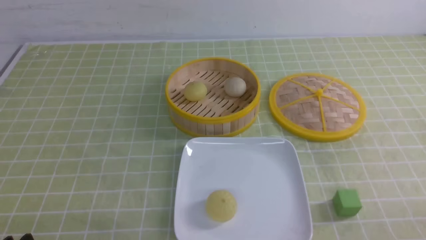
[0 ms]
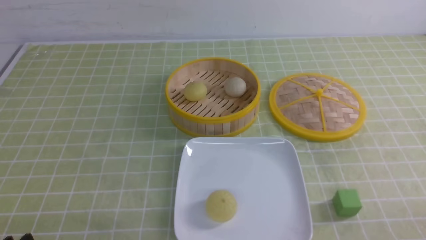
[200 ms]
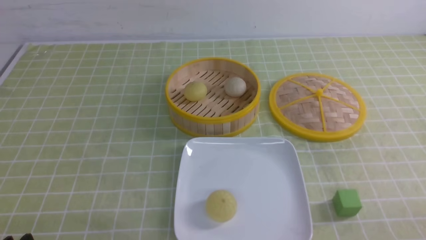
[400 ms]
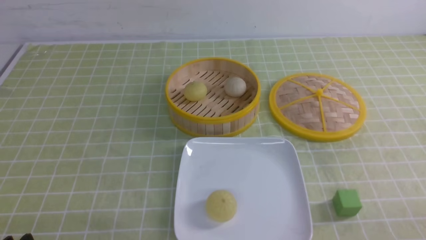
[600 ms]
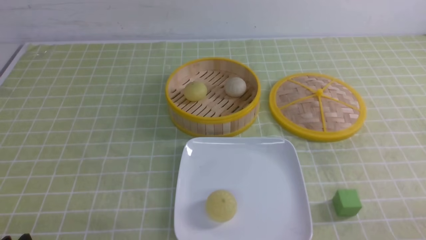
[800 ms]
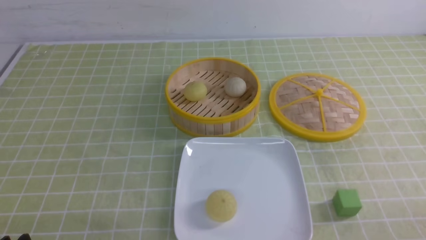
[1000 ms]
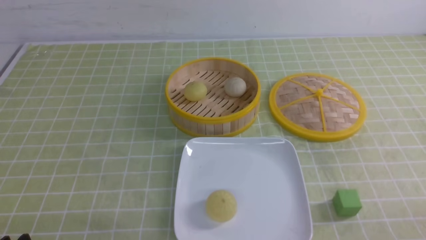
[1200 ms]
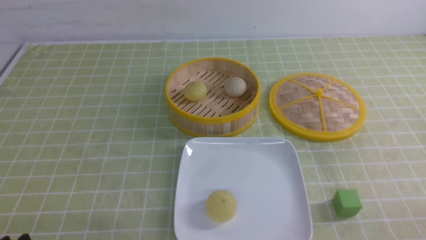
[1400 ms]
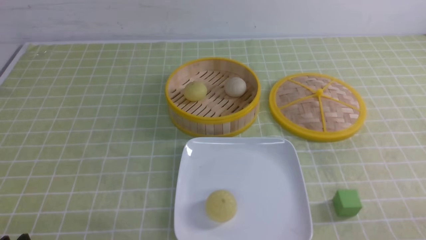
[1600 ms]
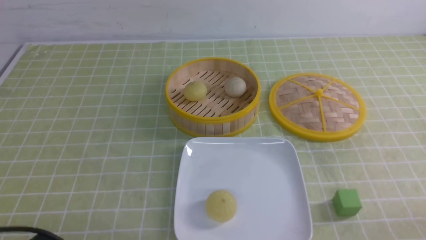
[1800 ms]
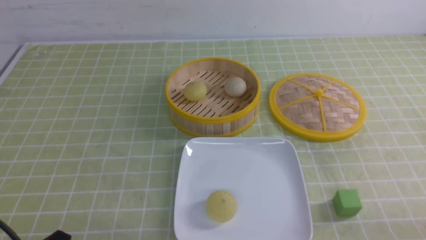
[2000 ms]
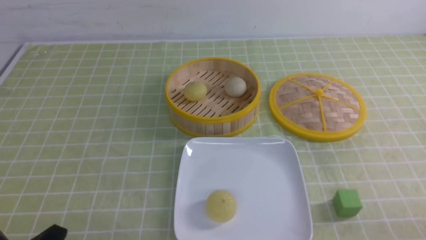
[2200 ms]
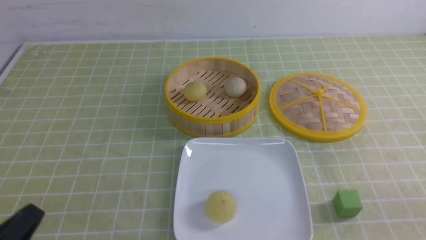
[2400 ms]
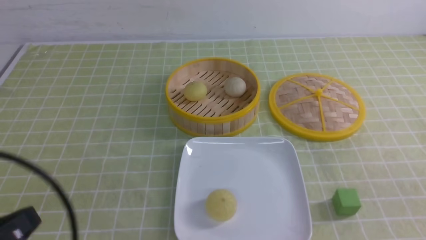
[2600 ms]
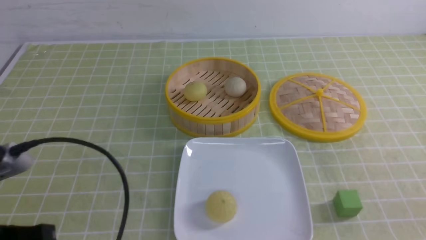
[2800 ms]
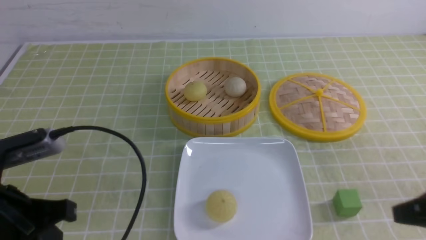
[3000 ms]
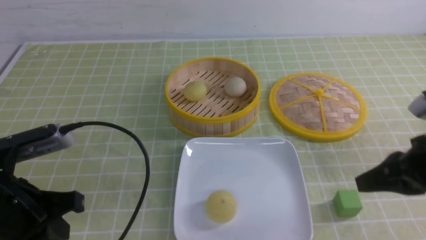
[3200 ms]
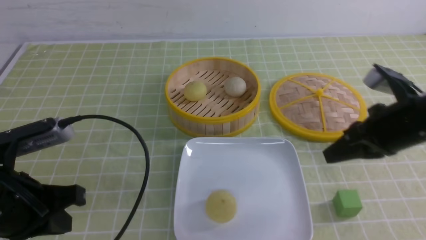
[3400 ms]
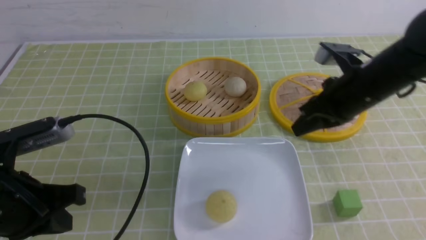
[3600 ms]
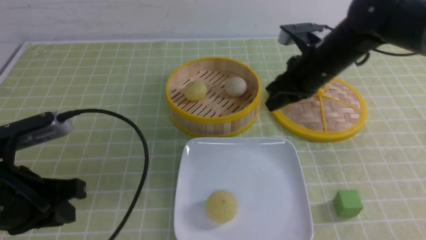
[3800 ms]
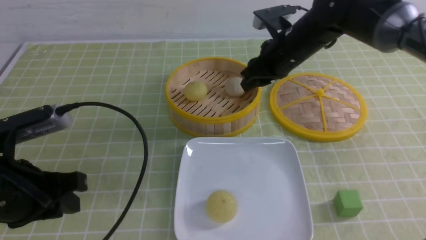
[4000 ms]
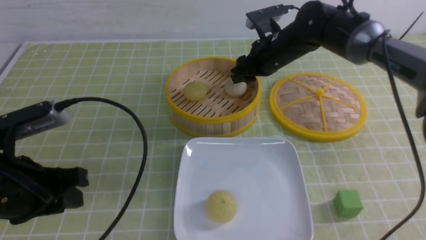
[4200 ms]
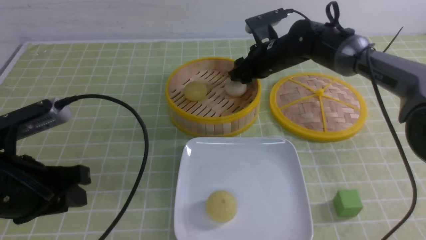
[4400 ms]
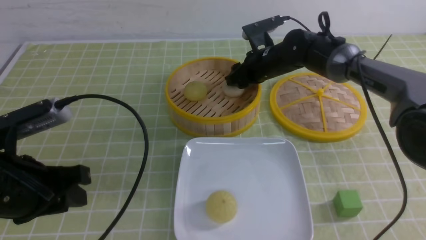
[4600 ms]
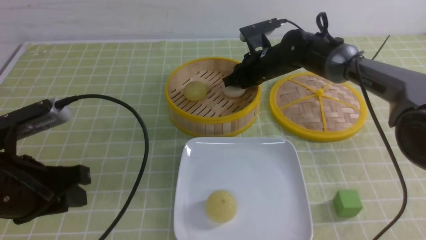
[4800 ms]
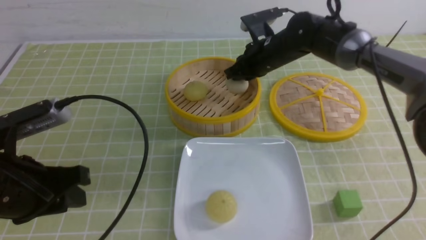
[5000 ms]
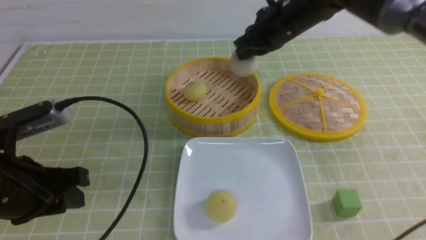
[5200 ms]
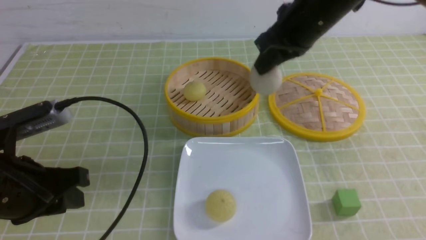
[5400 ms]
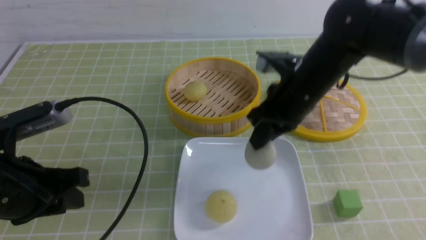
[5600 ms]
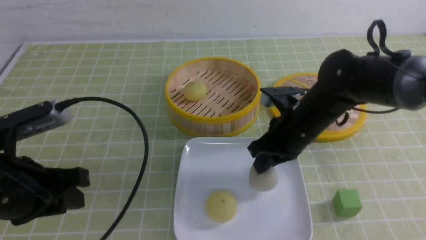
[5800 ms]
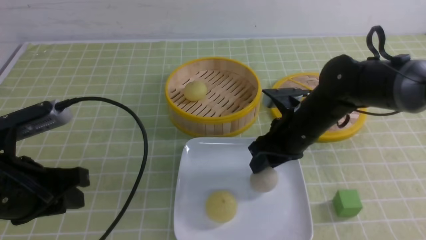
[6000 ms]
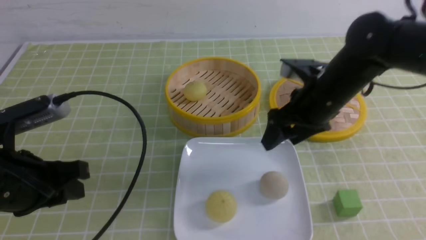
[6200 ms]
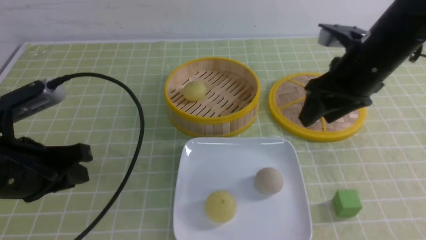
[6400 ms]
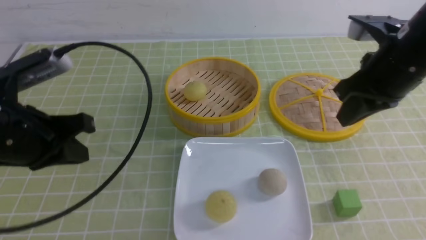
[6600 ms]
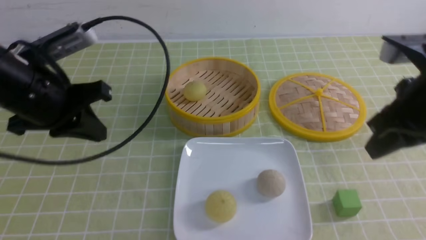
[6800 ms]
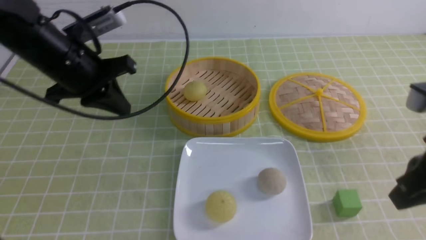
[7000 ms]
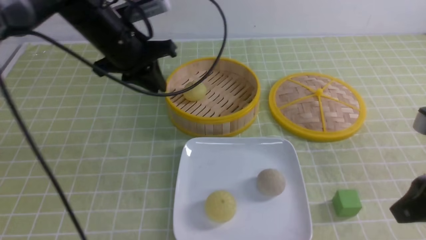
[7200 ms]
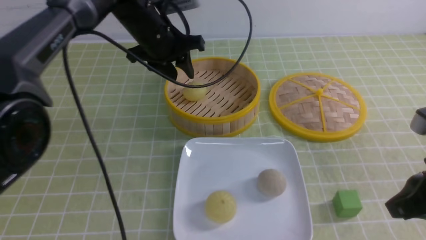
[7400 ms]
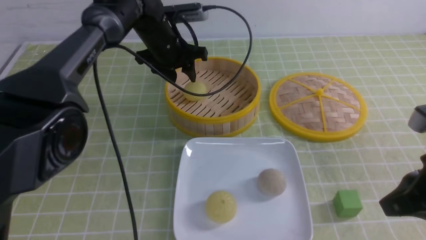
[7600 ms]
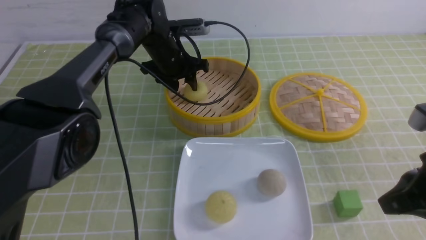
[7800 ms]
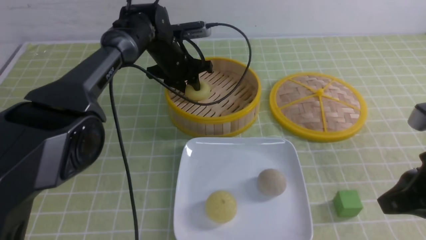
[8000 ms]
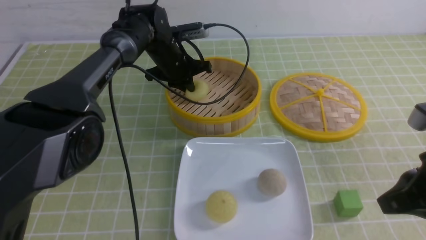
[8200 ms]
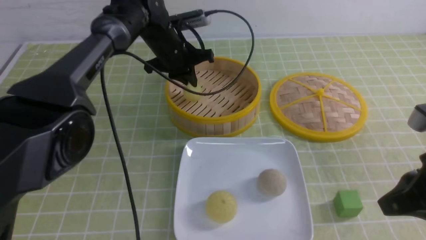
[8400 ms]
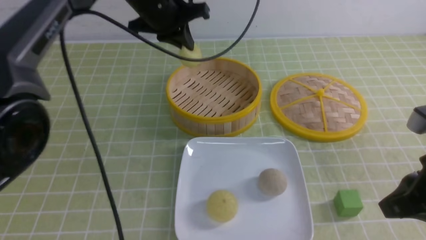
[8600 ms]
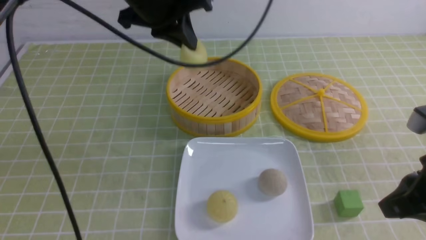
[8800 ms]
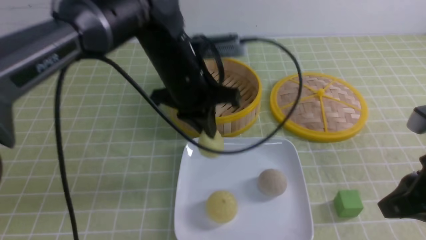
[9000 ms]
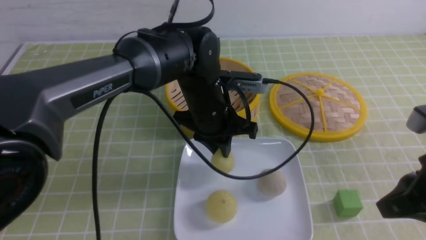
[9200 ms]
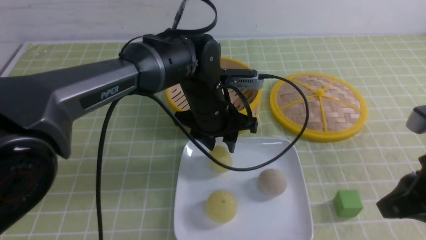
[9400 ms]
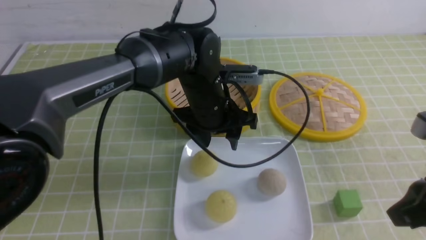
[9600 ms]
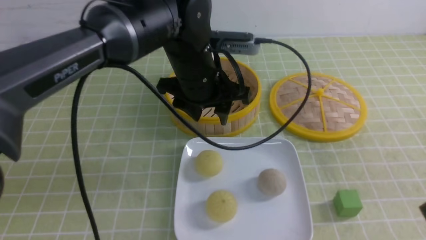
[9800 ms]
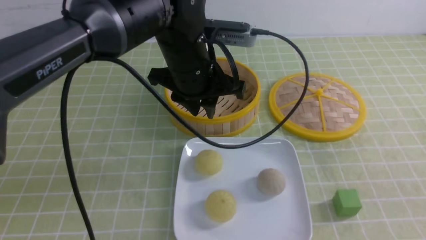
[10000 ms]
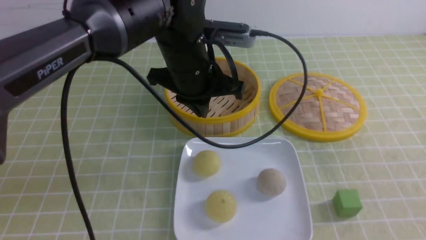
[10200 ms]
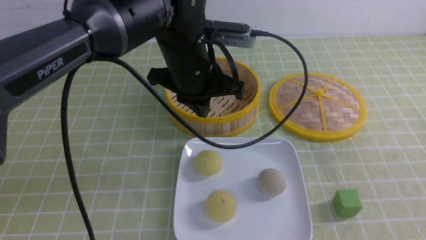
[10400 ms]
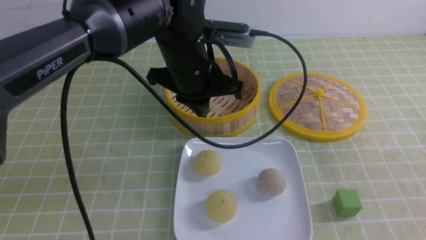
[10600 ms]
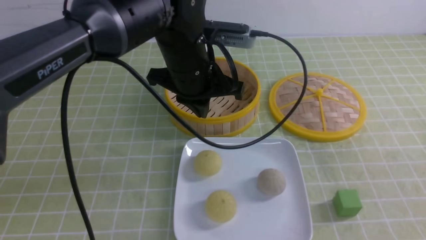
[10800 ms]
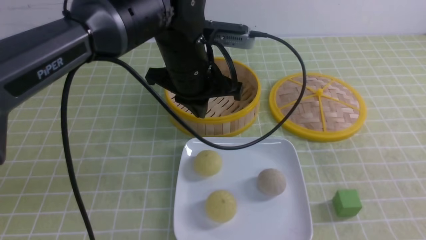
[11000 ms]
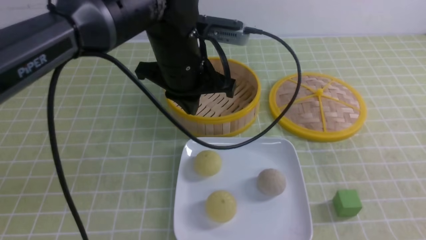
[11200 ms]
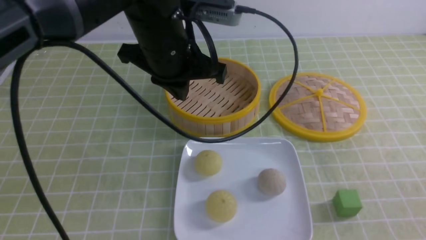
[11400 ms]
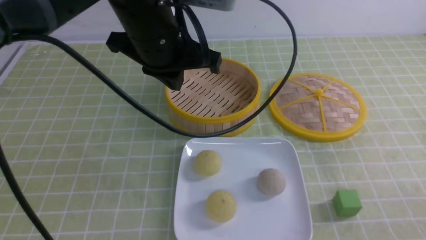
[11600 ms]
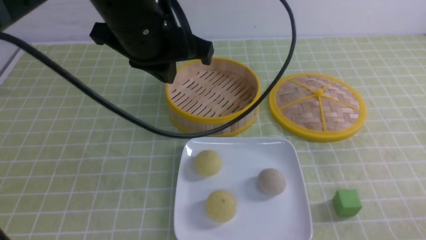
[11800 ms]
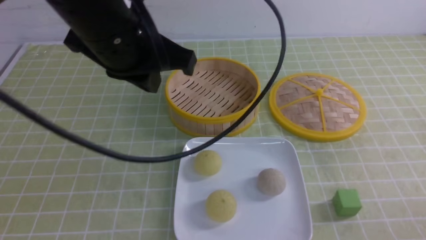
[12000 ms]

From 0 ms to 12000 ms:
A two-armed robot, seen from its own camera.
Step, from 0 ms to 4800 ms: use the right arm to grab the steamed stuffed bun that is closest to it.
Step, from 5000 ms to 6000 ms: use the right arm to put the steamed stuffed bun into the plate.
Step, from 6200 ms to 8200 ms: use the left arm to grab the steamed stuffed bun that is closest to it.
Step, from 8400 ms to 9400 ms: use the left arm to put the steamed stuffed bun into the plate.
From 1600 ms to 3000 ms: The right gripper goes approximately 15 cm forward and upward, and closes up, while the left gripper goes some 15 cm upward and forward, and closes.
From 3000 ms to 4400 ms: The left gripper opens up. The right gripper travels forward and to the left by some 40 cm, and opens up.
From 4400 ms to 6000 ms: The right gripper is displaced backward by approximately 15 cm, and closes and opens again.
From 6000 ms to 7600 ms: The left gripper moves forward and to the right, roughly 35 cm, and opens. Meanwhile the right gripper is displaced backward and to the right by roughly 20 cm, and closes its fingers.
From 7600 ms to 9000 ms: The left gripper goes roughly 15 cm backward, and closes its fingers.
From 9000 ms to 10400 ms: The left gripper travels downward and back again, some 5 cm each way, and opens, then closes once more; the right gripper moves backward and to the right, roughly 10 cm.
From 10400 ms to 12000 ms: The left gripper shifts about 15 cm upward, backward and to the left, while the right gripper goes approximately 10 cm downward.

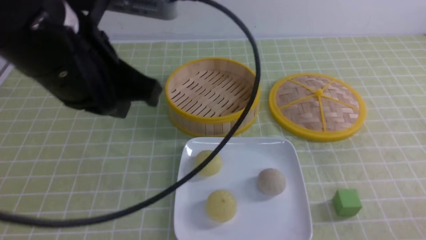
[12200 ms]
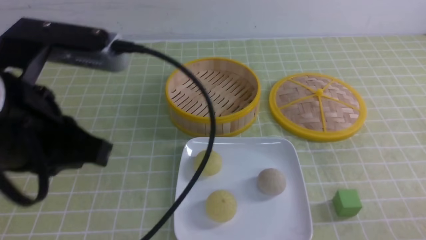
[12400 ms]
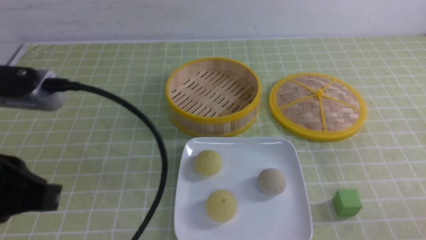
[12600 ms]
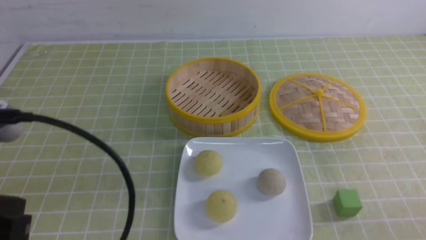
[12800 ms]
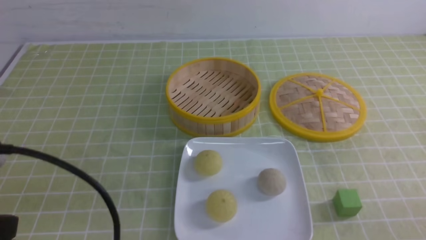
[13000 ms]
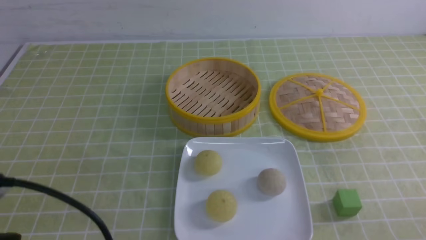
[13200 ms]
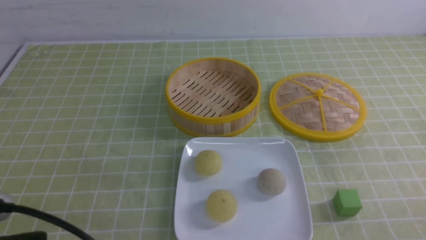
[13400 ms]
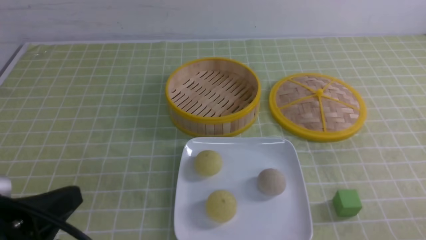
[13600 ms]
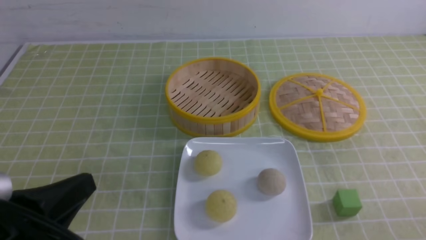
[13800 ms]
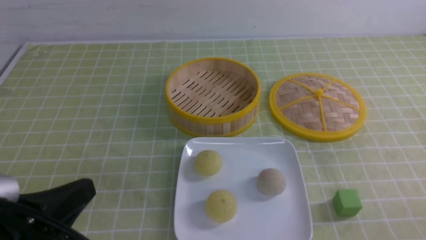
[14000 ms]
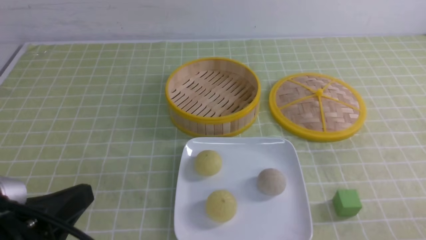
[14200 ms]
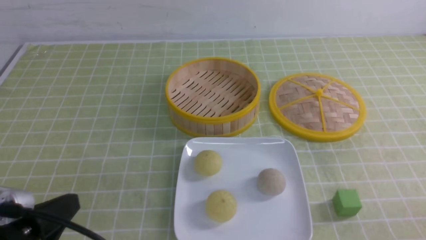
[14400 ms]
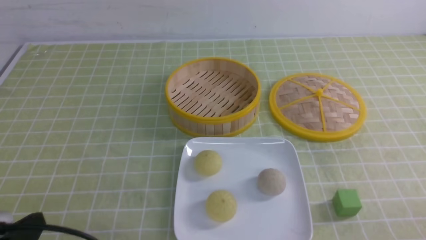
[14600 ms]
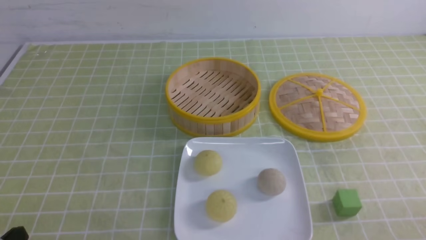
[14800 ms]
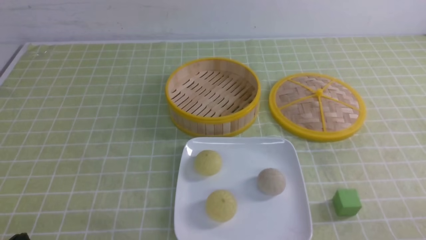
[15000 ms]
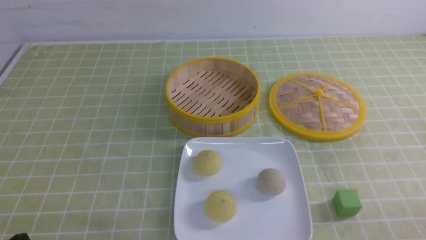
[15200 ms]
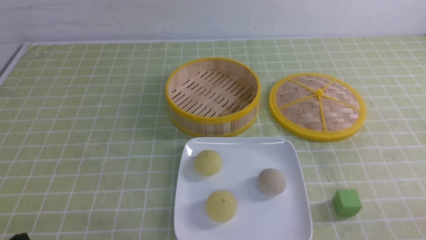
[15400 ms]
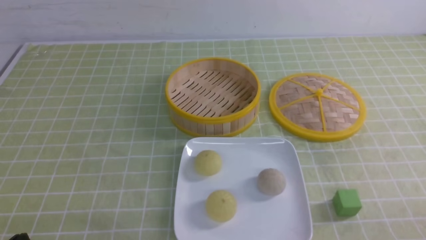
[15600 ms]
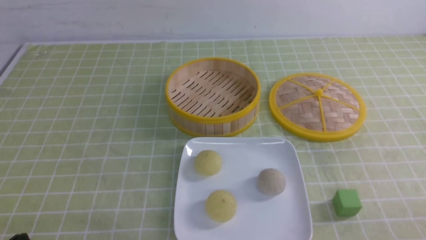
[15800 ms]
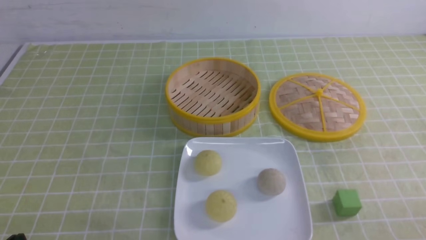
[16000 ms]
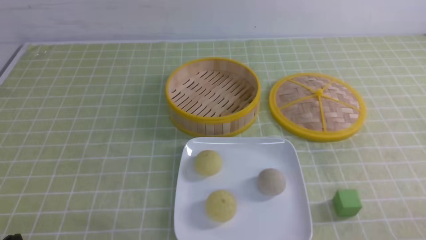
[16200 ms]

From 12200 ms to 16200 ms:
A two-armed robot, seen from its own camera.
From 12200 ms to 13600 ms: The left gripper goes some 20 cm backward, downward and to the left.
From 13600 ms to 14800 ms: The left gripper shifts about 10 cm downward.
